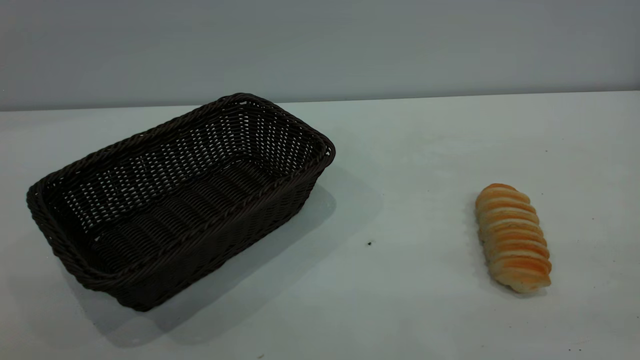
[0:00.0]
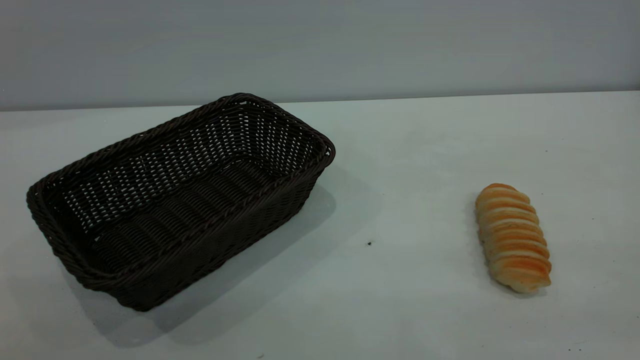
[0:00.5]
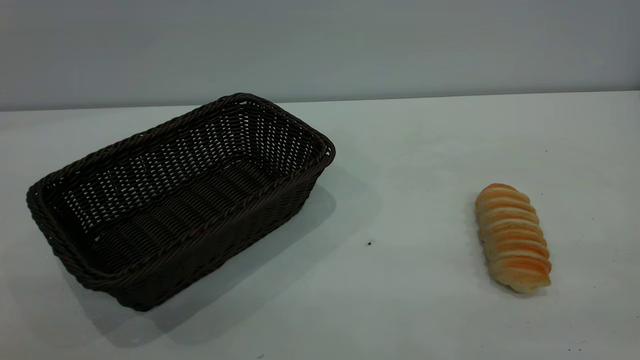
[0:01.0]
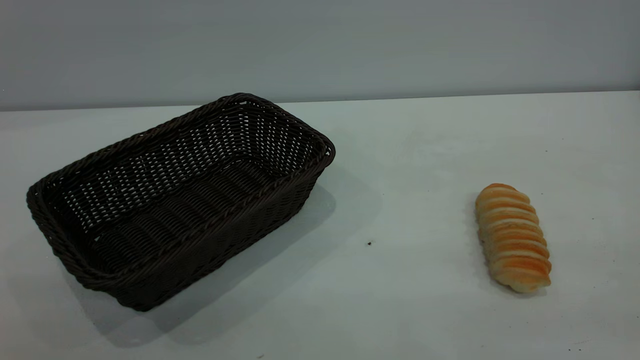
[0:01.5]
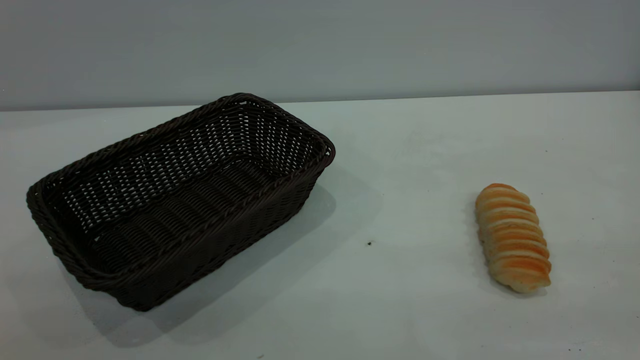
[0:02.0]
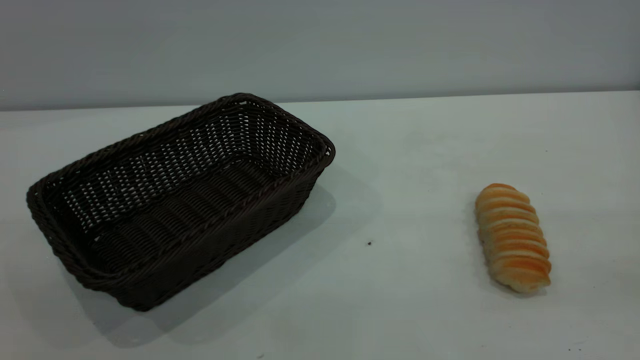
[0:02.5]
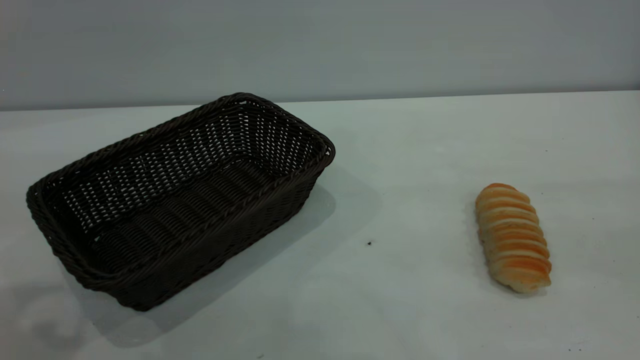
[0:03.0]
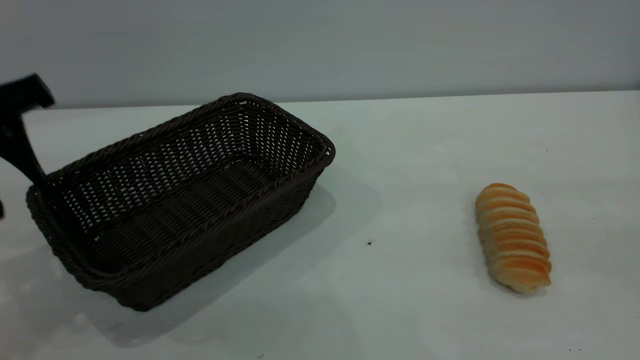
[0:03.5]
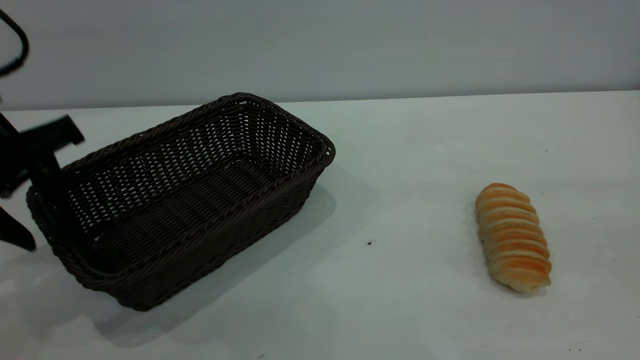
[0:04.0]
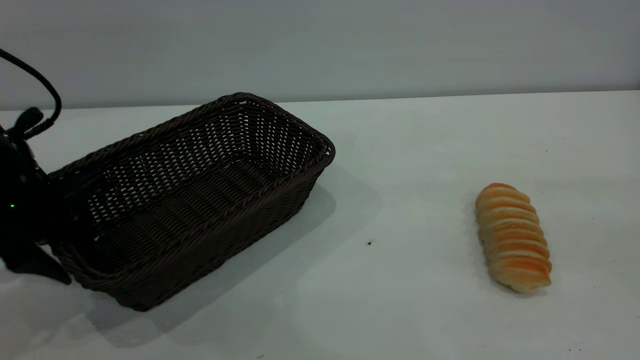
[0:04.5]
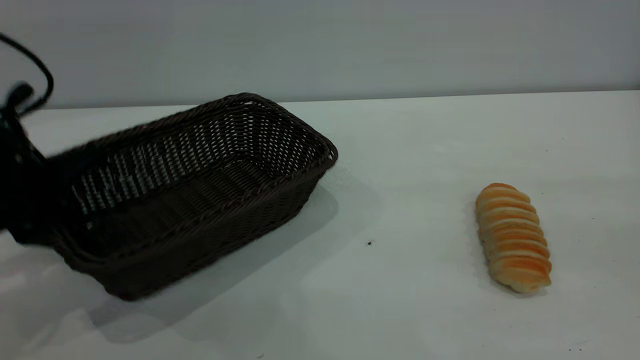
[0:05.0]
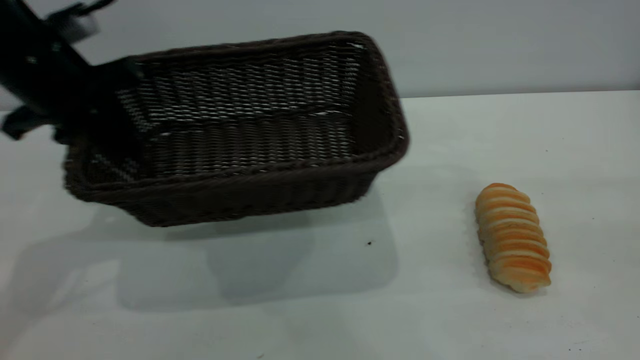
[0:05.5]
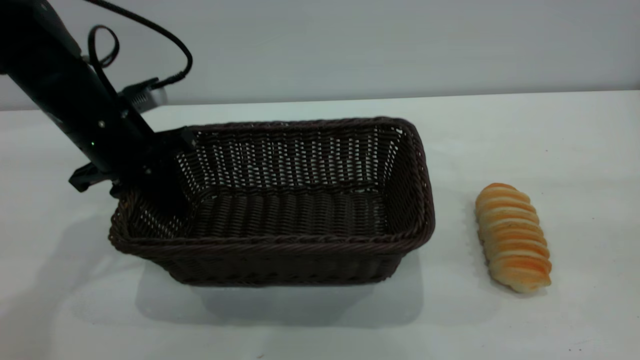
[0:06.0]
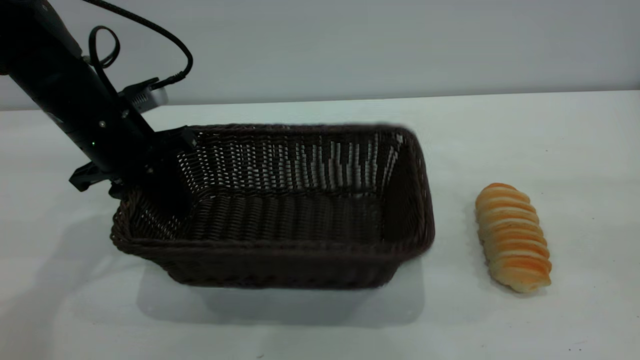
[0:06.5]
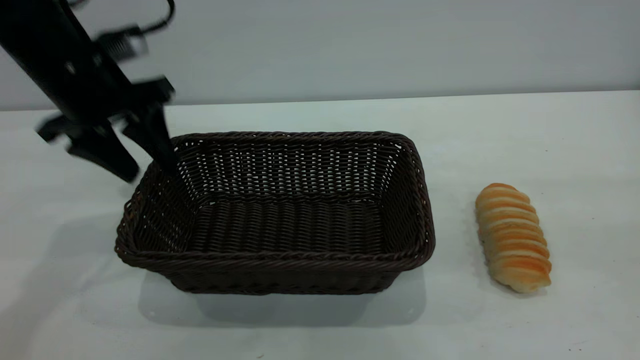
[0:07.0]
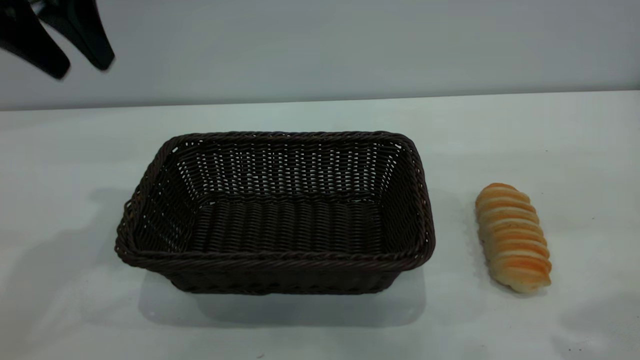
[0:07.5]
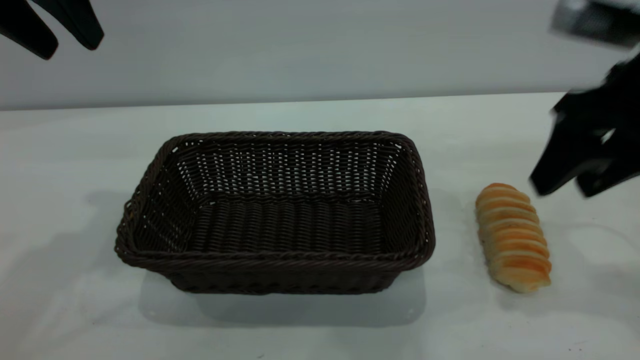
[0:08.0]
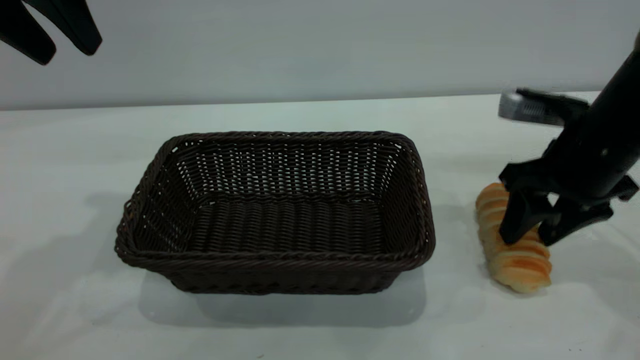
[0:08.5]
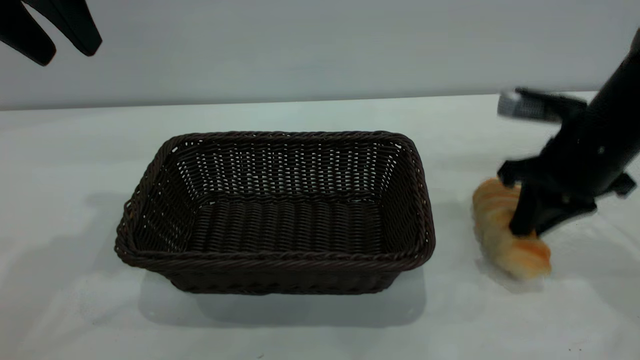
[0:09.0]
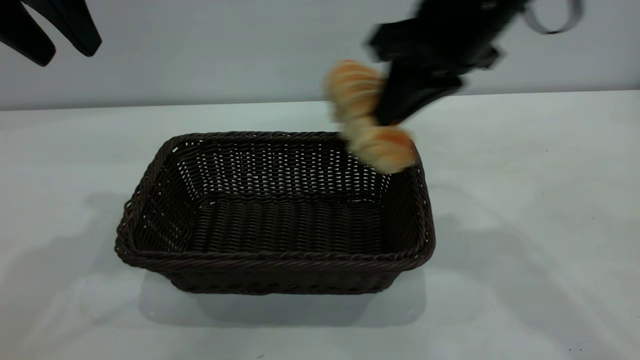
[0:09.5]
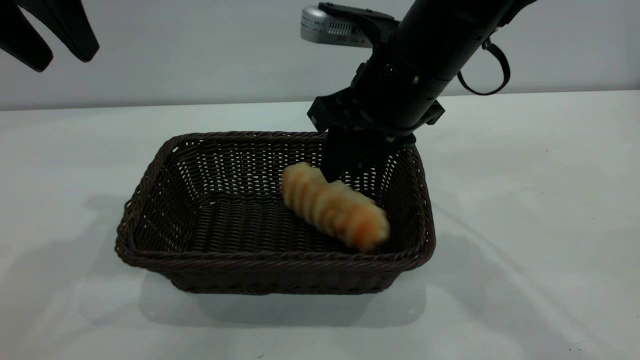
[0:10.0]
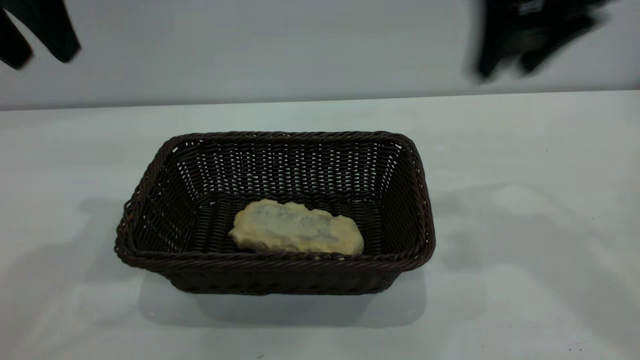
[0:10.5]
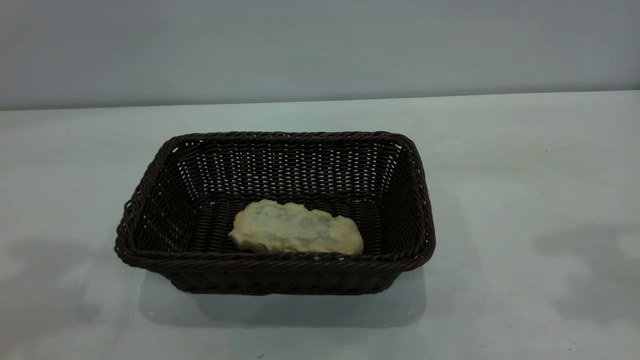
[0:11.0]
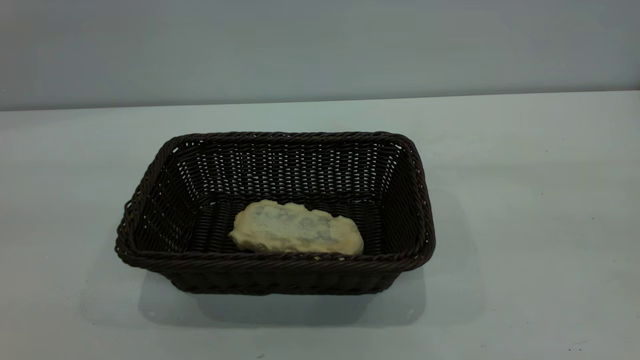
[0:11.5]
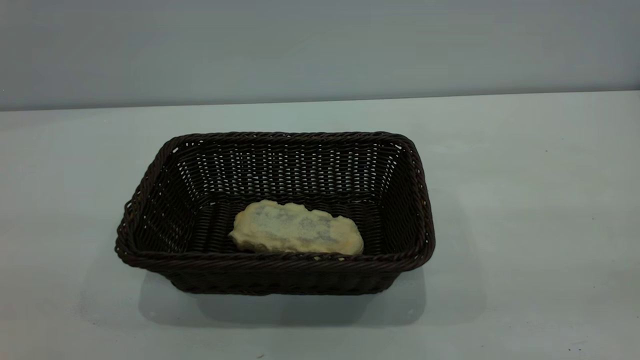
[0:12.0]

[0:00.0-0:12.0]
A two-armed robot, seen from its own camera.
Task of the whole recording: One hand grasps the black basket and places it in the middle of the table, while the other hand picks up the long bread and puts it into the black basket.
Step, 0:00.0 to 0:07.0: Move the basket to the center of view.
Step, 0:09.5 to 0:10.0: place the bread into the basket.
0:02.0 to 0:04.0: The left gripper moves forward and downward, roughly 35 cm.
0:04.0 to 0:06.0: The left gripper shifts approximately 10 cm forward, and closes its fingers.
0:06.0 to 0:08.0: The right gripper is displaced forward and downward by about 25 cm. Meanwhile the left gripper heads upward, covering about 20 cm, and opens its fingers.
0:08.0 to 0:10.0: The right gripper goes some 15 cm to the left, and closes.
0:10.0 to 0:12.0: The right gripper moves backward, to the right and upward, roughly 40 cm; the left gripper shifts about 30 cm backward.
